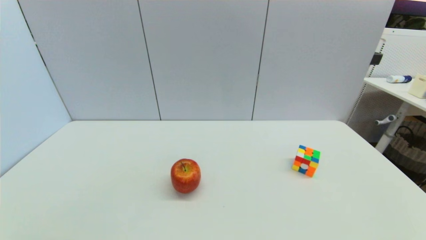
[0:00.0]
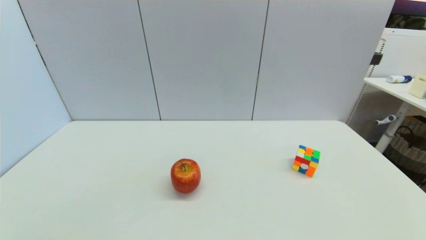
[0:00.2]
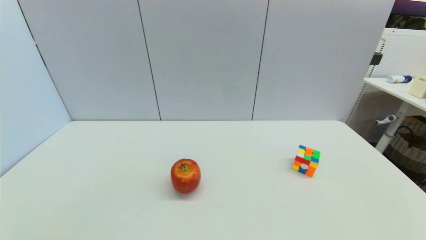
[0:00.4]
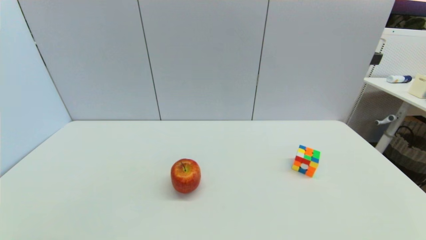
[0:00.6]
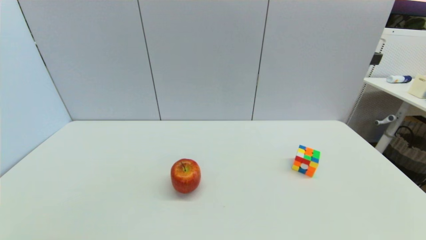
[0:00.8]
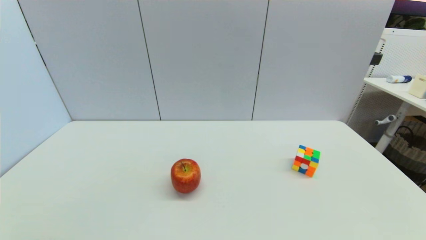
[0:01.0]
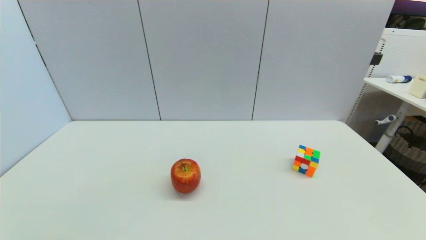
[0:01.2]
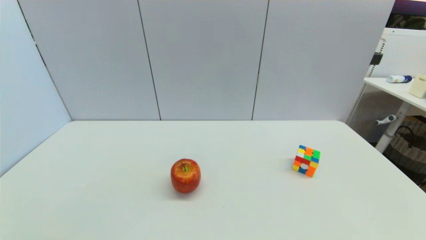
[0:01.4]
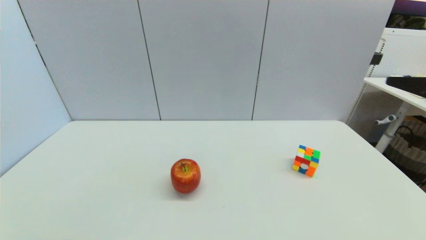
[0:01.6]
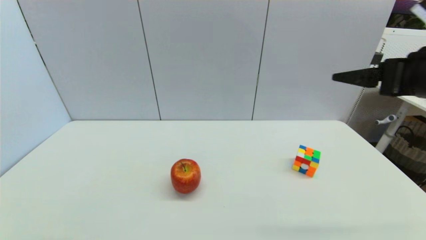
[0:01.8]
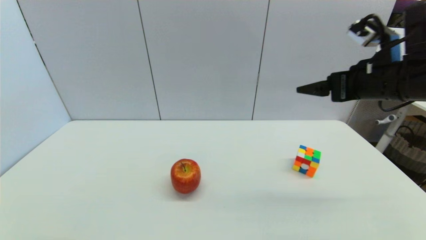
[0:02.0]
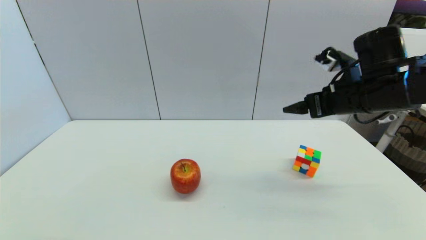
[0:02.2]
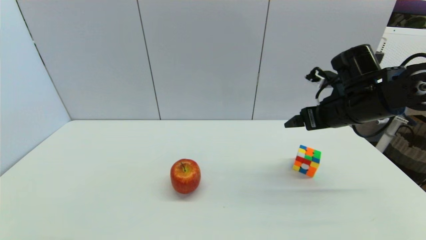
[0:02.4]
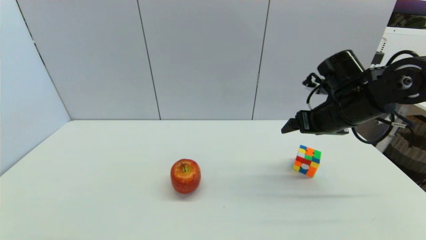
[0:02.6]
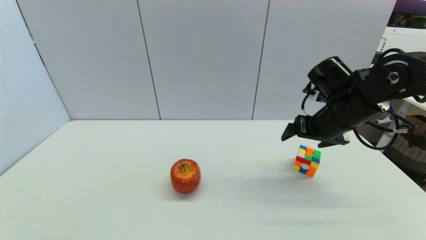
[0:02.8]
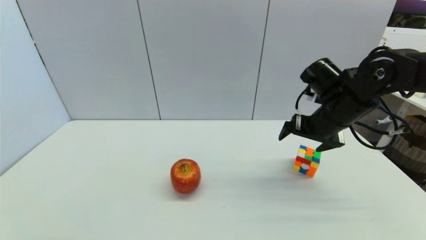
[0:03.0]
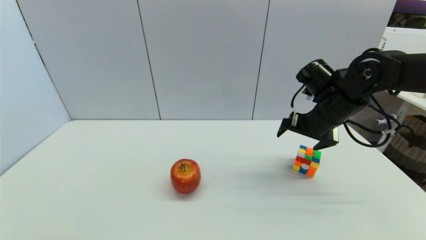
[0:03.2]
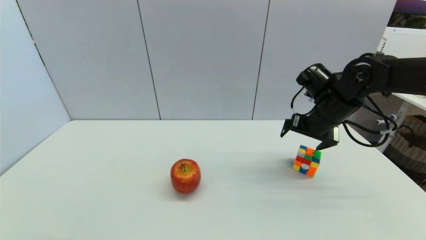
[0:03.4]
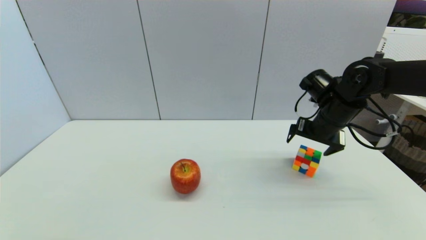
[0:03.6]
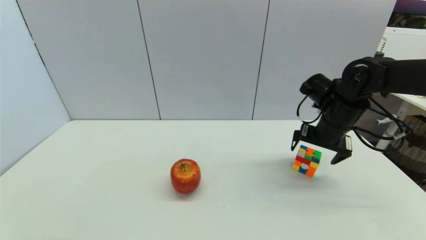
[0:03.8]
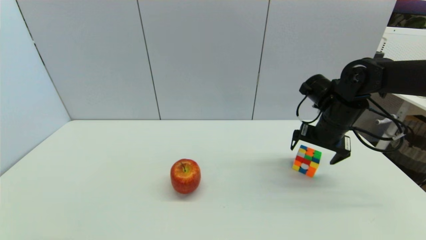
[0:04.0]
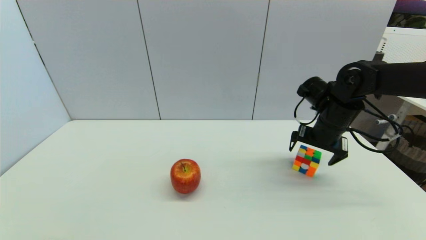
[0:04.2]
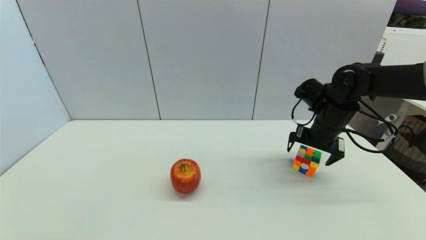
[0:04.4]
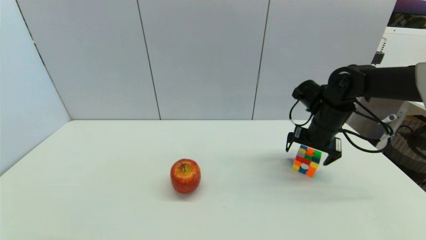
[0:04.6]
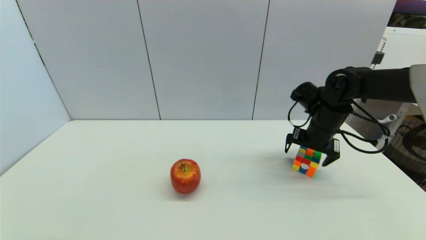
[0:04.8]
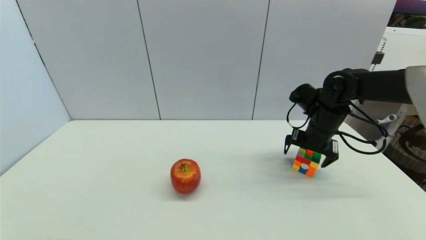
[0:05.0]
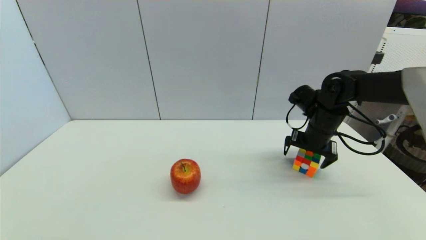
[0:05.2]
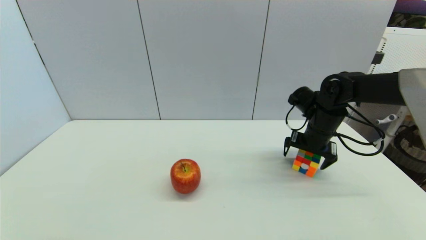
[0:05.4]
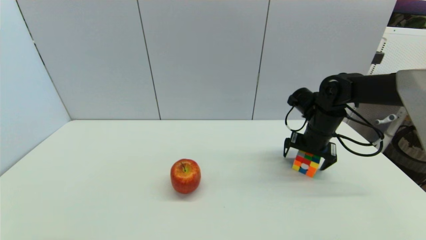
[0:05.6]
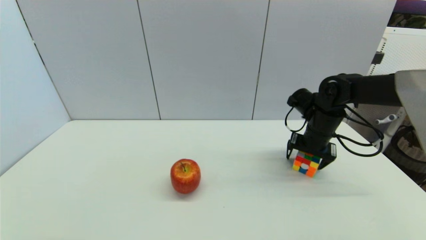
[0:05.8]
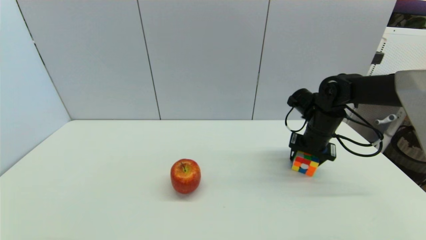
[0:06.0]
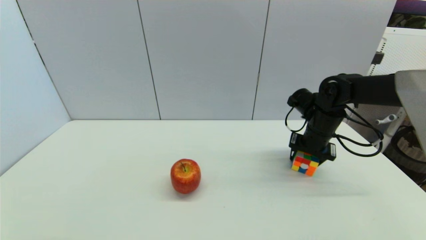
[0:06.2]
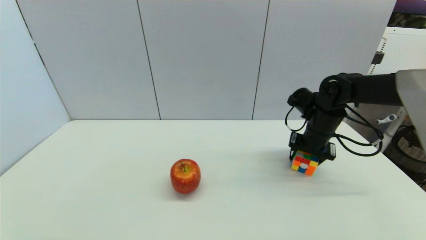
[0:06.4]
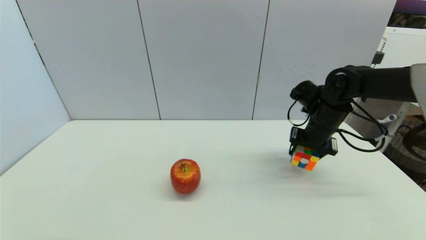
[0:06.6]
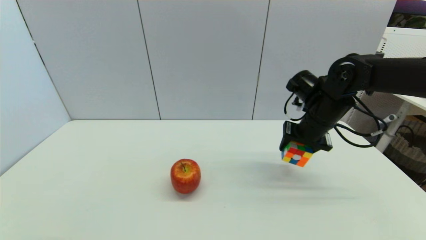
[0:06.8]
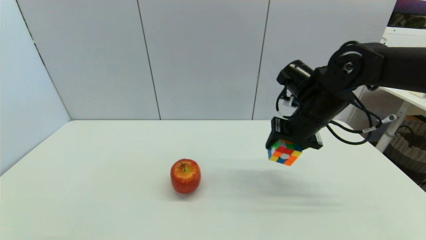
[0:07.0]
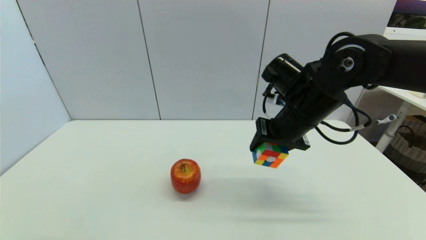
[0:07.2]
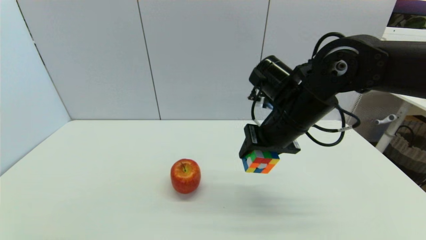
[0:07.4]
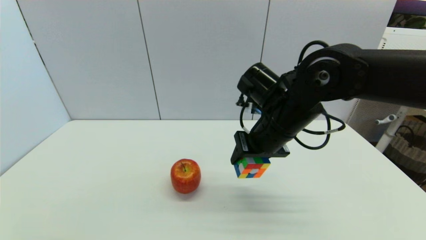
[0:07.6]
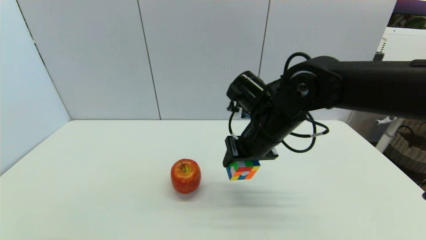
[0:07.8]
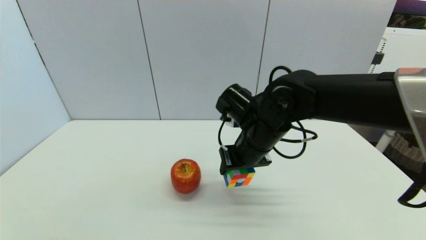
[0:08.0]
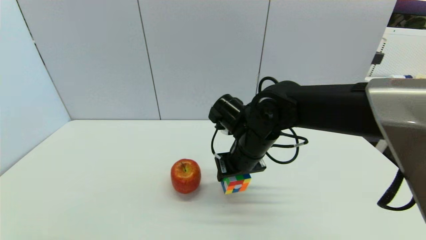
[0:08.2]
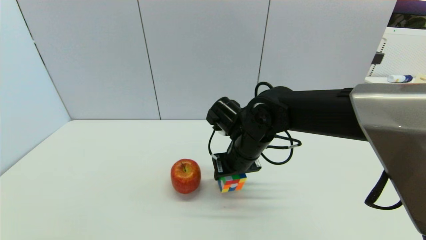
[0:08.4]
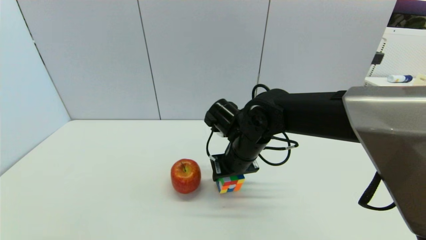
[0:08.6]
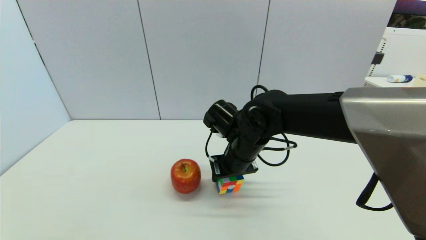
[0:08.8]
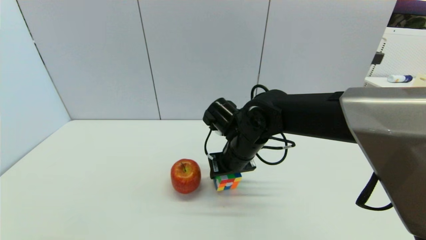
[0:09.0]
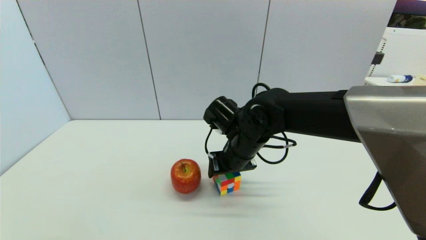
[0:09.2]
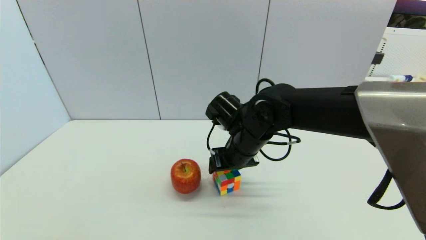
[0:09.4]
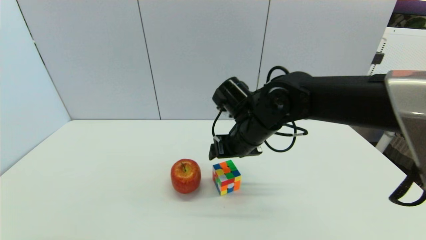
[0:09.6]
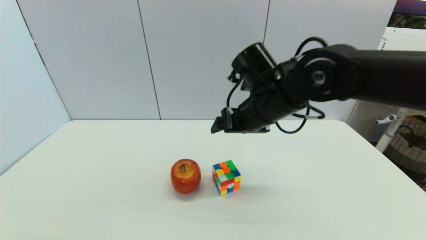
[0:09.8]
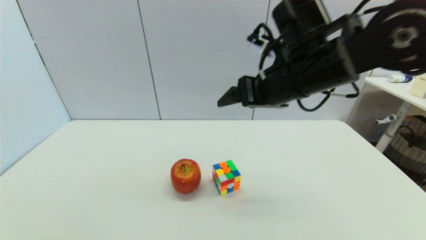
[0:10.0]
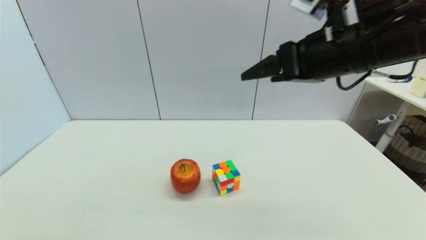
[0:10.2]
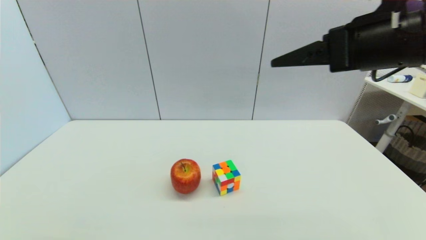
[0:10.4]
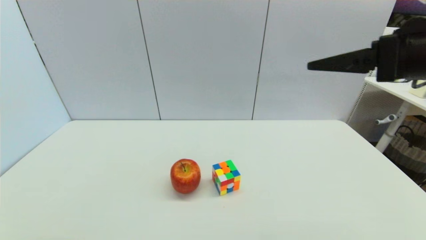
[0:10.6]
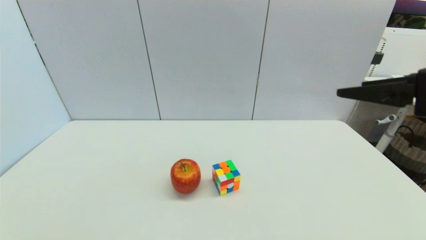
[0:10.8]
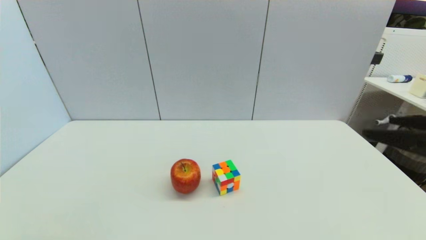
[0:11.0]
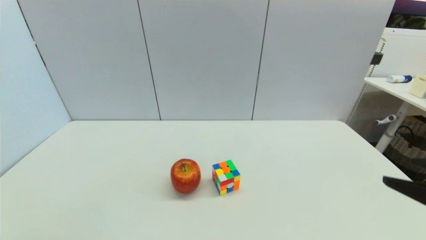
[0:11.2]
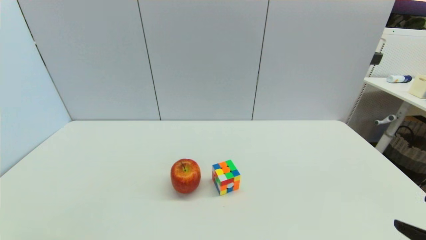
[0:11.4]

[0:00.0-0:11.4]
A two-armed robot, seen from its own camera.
Step, 0:01.6 to 0:06.0: Grasp the magic cube with right gripper.
Step, 0:06.4 to 0:09.6: Place the magic cube on the table with right gripper.
0:01.4 to 0:02.8: The right gripper heads forward and to the left, covering approximately 25 cm.
0:02.8 to 0:04.2: The right gripper ends up some 5 cm from where it was.
0:04.2 to 0:05.6: The grippers move only a little.
0:05.6 to 0:07.2: The right gripper shifts roughly 15 cm to the left, upward and backward, and closes.
0:07.2 to 0:08.6: The right gripper moves to the left and downward, roughly 15 cm.
0:08.6 to 0:10.0: The right gripper is displaced upward and to the right by roughly 20 cm, and opens its fingers.
0:10.0 to 0:11.4: The right gripper shifts roughly 35 cm backward, to the right and downward.

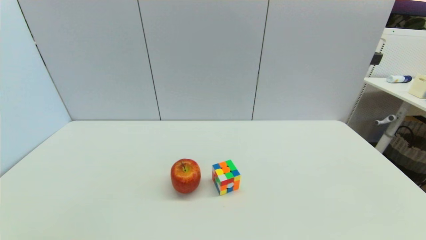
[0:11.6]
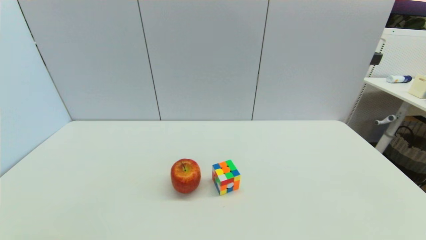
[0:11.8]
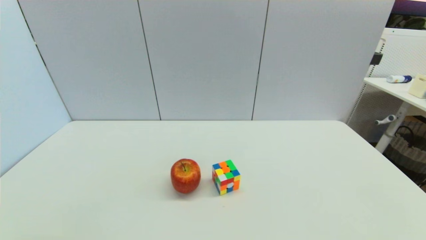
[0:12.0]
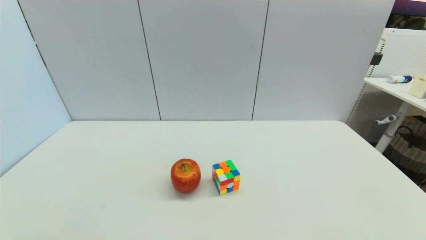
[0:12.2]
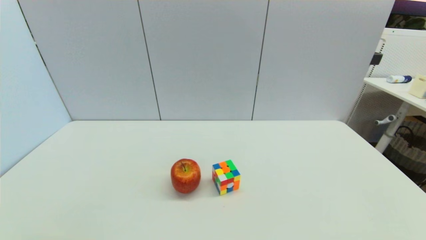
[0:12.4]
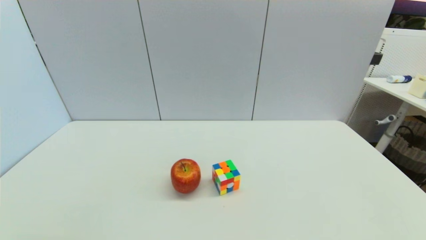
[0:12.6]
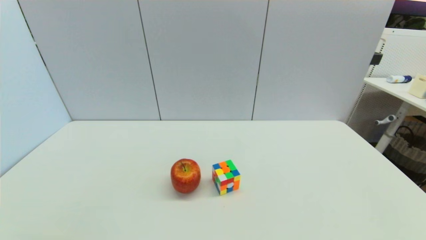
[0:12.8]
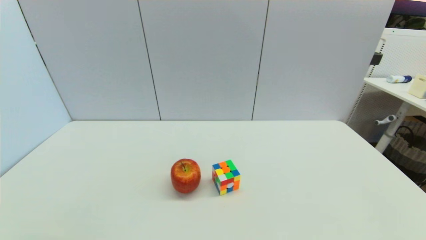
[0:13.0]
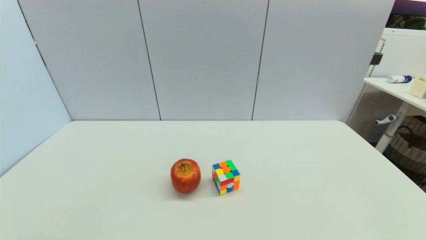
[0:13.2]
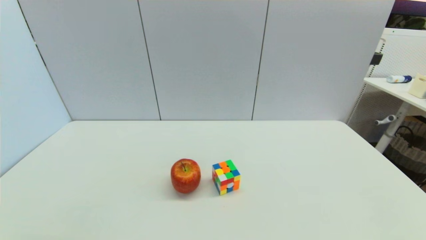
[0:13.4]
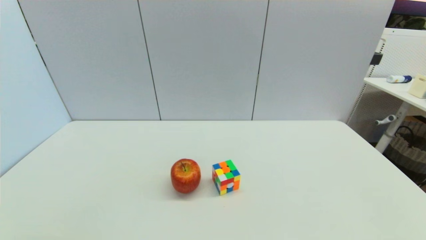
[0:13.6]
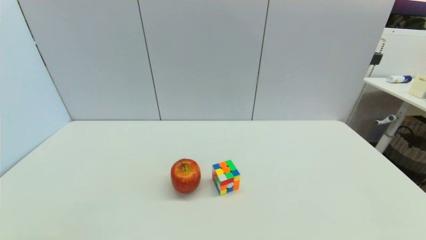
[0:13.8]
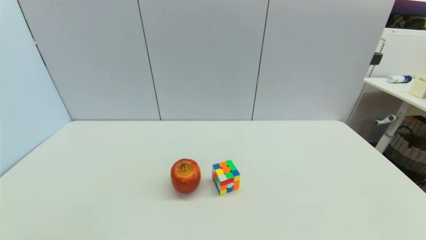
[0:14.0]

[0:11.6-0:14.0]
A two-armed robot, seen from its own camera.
0:12.8 to 0:14.0: The two grippers keep their place.
